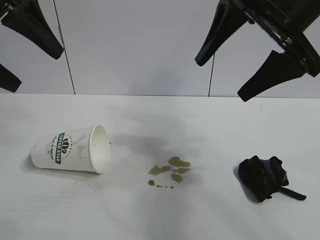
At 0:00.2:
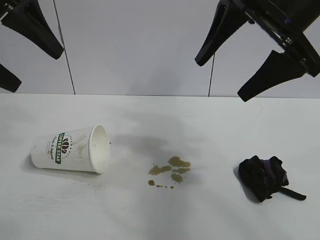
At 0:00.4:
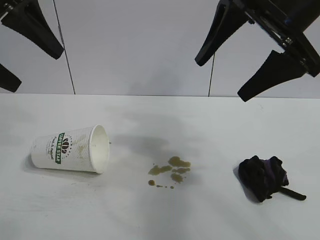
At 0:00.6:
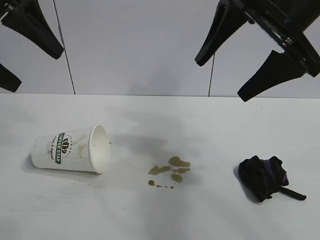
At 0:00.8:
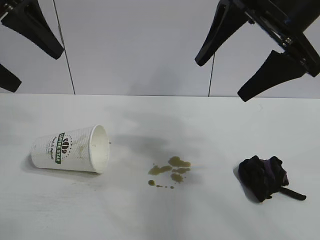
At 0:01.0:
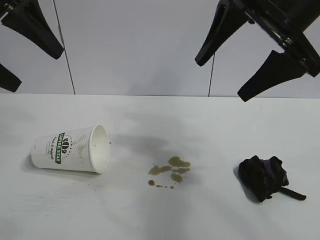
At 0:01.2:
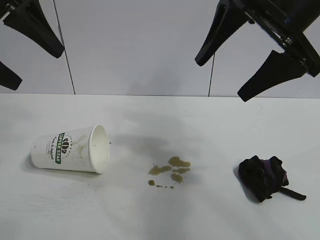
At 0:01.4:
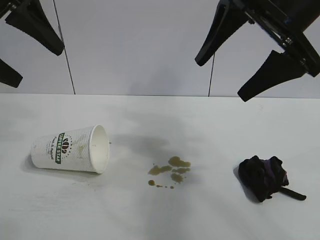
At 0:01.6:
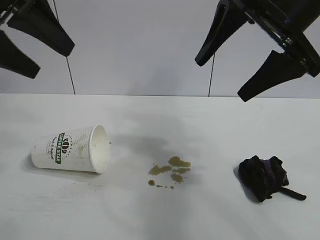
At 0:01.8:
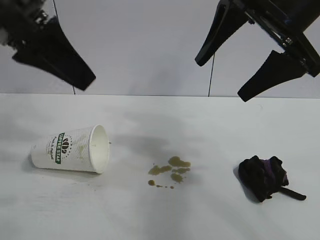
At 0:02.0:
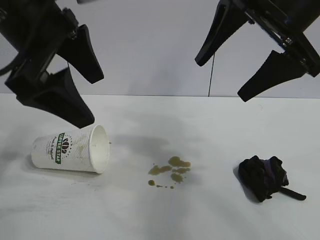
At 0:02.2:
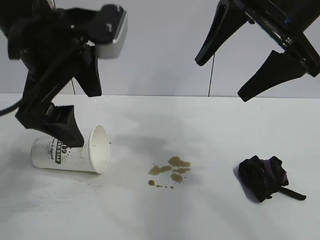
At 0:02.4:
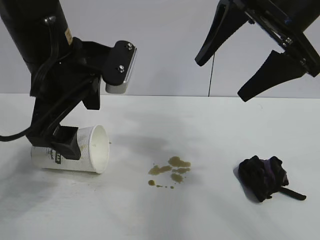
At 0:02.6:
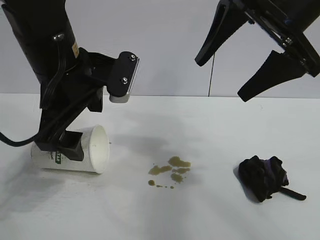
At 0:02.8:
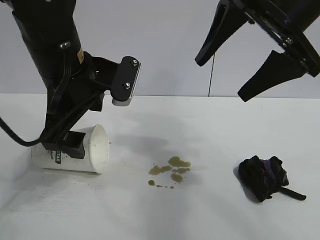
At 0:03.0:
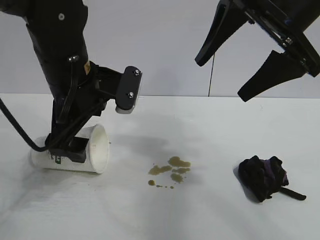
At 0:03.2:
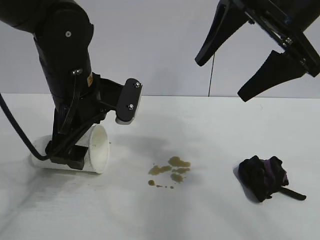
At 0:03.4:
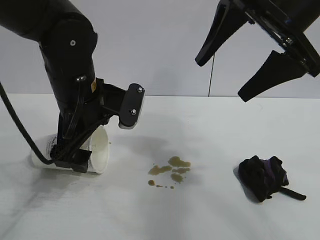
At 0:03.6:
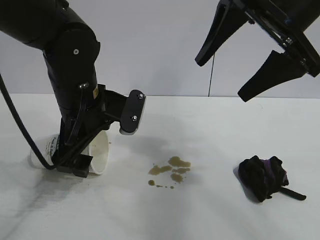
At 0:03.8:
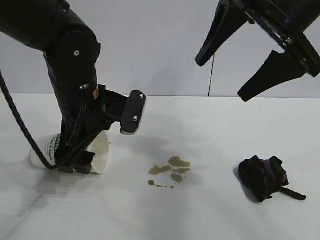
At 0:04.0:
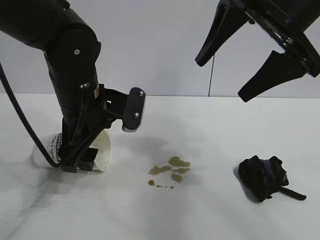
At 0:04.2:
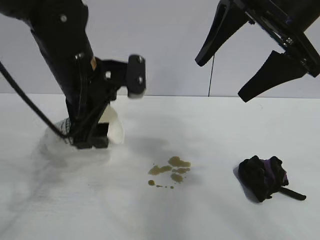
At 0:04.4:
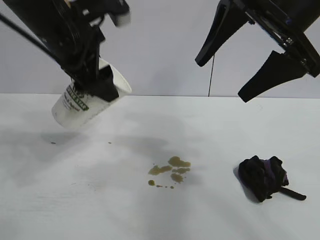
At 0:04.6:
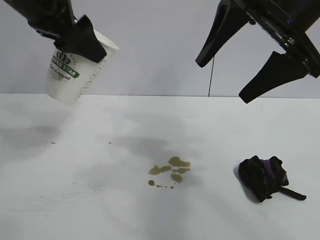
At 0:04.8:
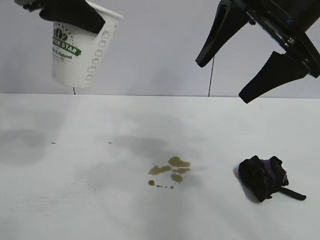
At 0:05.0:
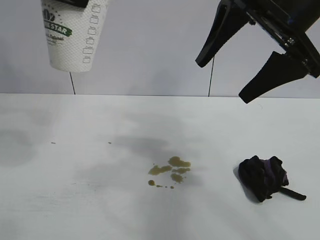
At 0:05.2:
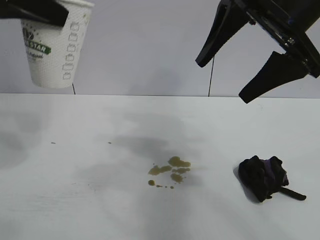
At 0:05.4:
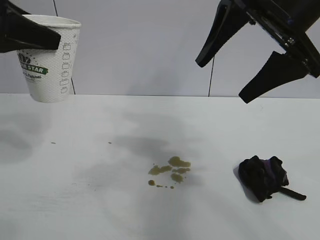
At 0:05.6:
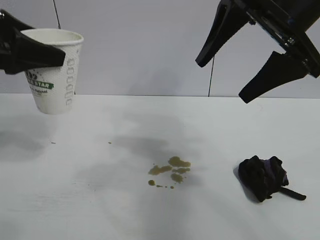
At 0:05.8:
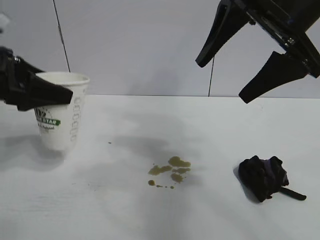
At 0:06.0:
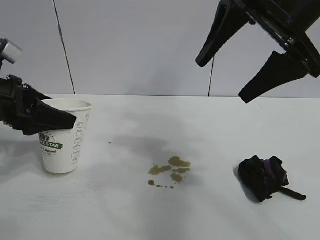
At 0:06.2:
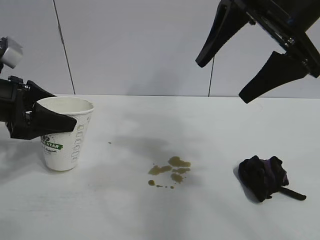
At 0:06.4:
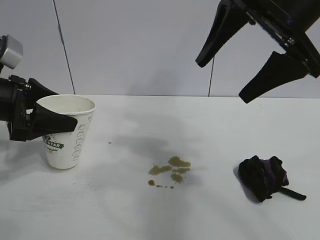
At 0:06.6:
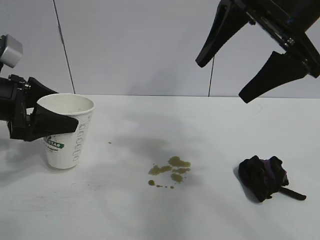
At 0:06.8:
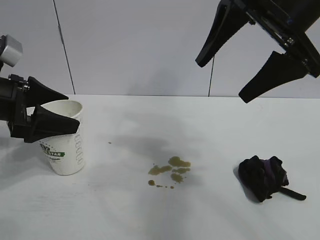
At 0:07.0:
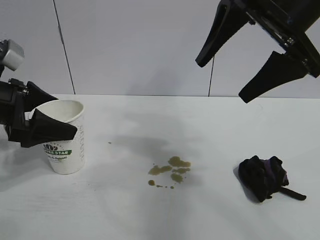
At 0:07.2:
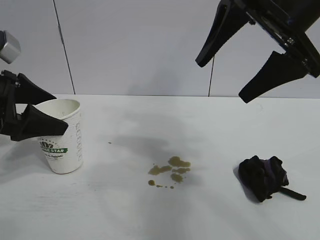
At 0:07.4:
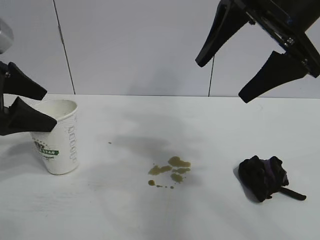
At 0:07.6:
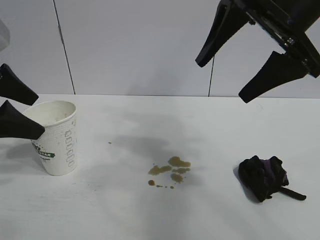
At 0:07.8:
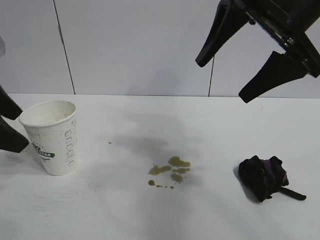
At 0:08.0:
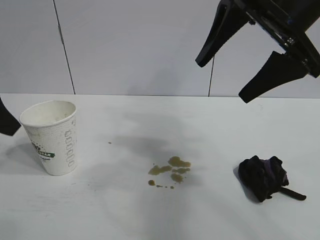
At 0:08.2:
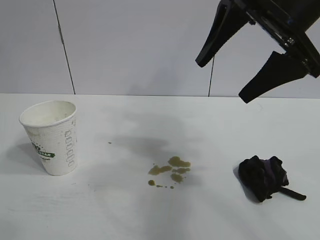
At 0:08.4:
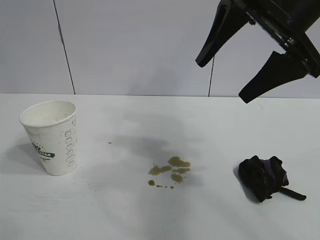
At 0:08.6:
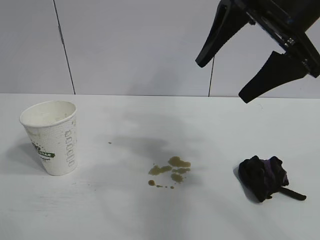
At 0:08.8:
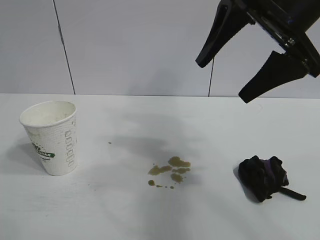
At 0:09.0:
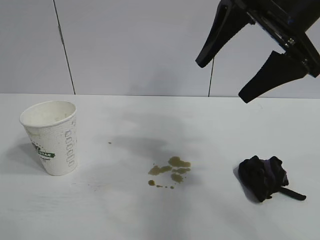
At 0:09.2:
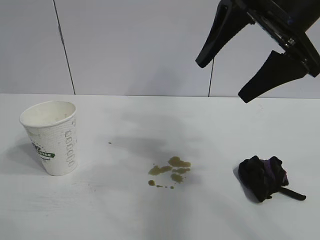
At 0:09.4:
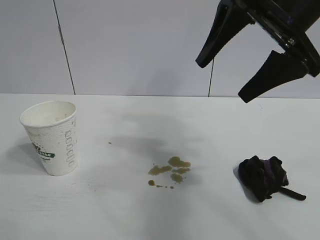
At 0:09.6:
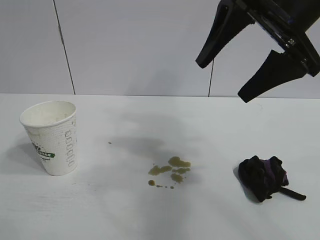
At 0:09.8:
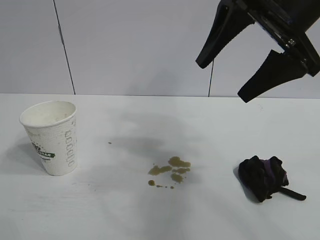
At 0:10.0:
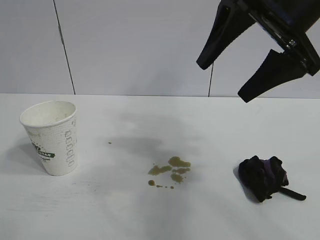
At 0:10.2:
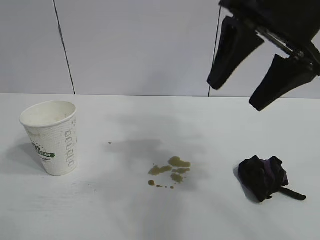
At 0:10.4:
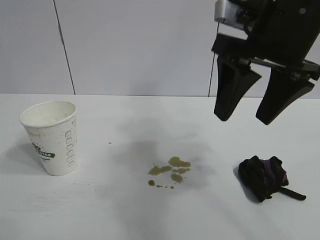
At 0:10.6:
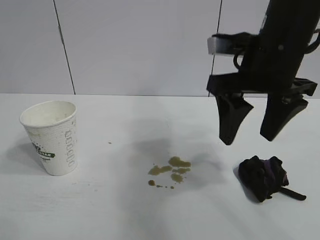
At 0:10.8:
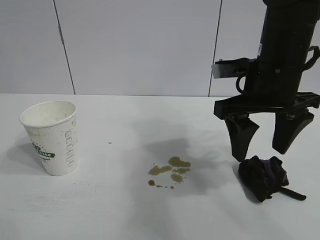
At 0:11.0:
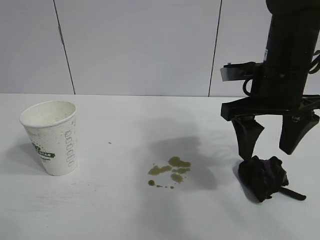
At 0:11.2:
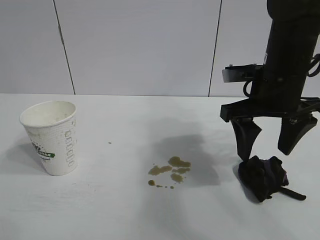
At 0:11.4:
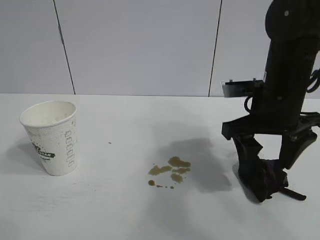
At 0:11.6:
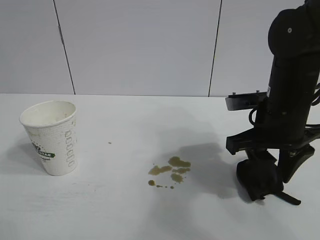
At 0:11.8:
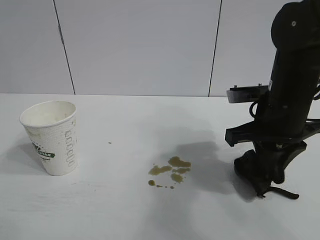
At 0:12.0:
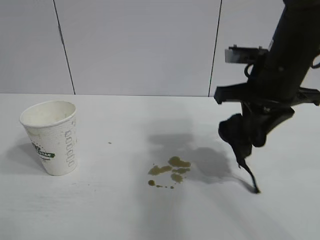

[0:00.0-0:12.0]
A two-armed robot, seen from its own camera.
Task of the whole recording: the left gripper pick up the fallen cup and place it upright, the right gripper grasp the black rag and wipe the stain on the table, the right gripper put the black rag back in its original position.
Step, 0:01.2 to 0:03.8: Grasp the paper cup with left gripper.
Step, 0:04.2 to 0:06.8: Stand the paper cup upright with left gripper.
Step, 0:07.0 to 0:11.6: Grasp the rag with right gripper.

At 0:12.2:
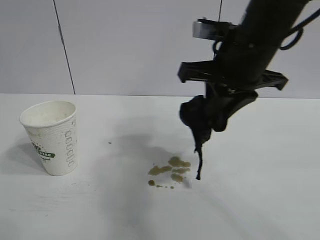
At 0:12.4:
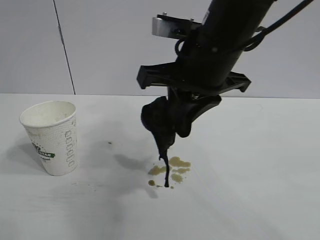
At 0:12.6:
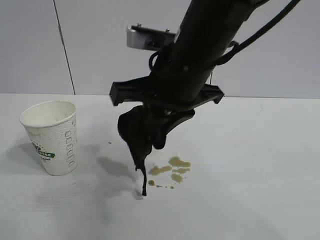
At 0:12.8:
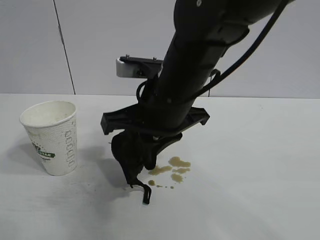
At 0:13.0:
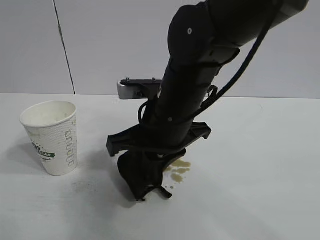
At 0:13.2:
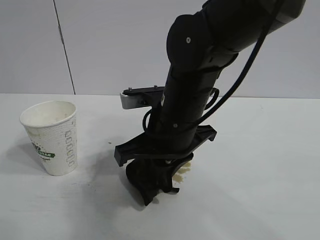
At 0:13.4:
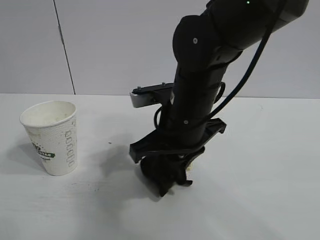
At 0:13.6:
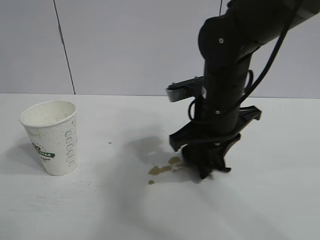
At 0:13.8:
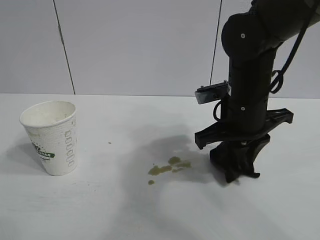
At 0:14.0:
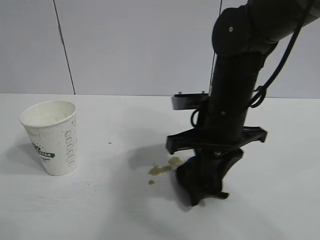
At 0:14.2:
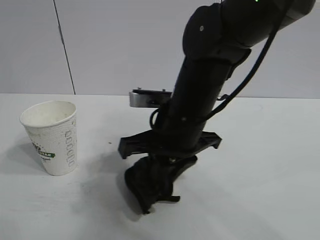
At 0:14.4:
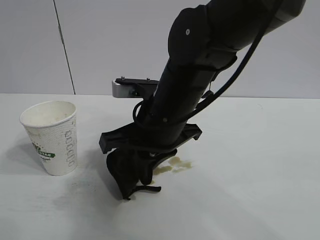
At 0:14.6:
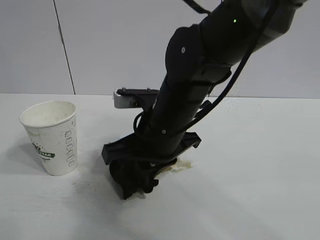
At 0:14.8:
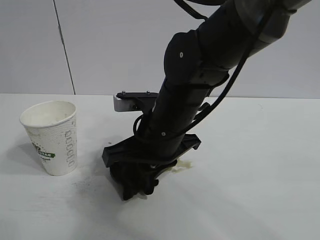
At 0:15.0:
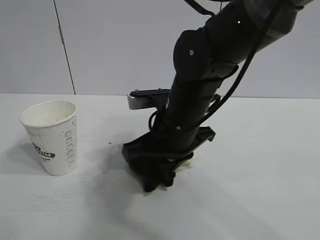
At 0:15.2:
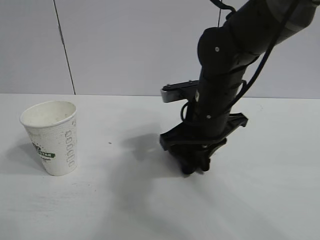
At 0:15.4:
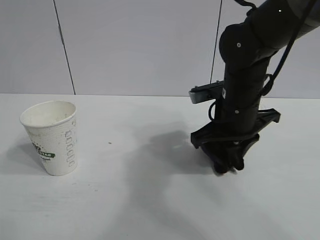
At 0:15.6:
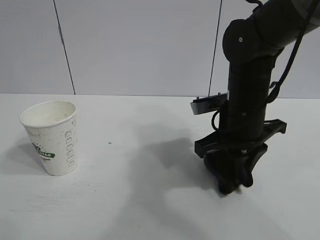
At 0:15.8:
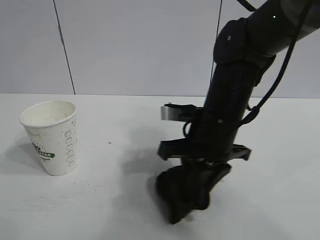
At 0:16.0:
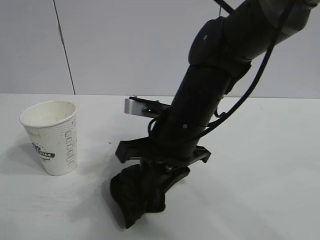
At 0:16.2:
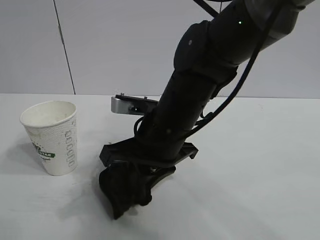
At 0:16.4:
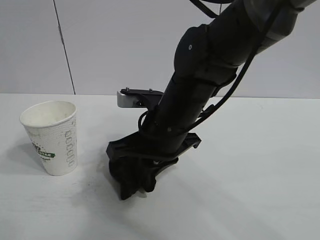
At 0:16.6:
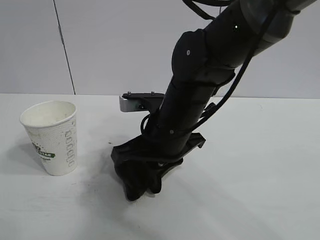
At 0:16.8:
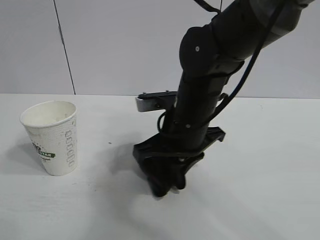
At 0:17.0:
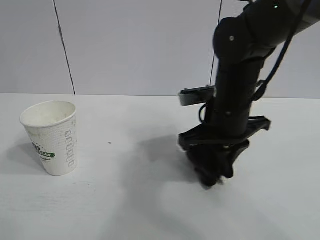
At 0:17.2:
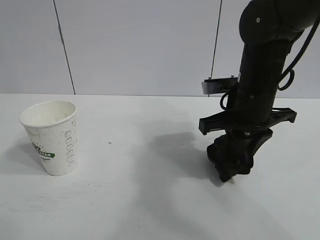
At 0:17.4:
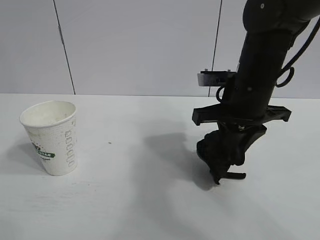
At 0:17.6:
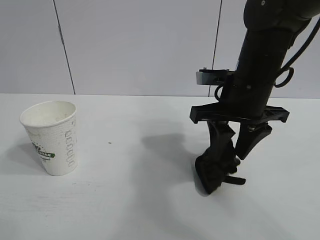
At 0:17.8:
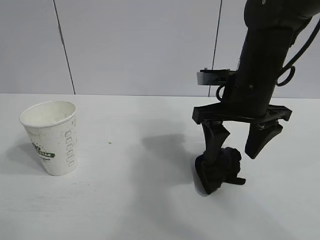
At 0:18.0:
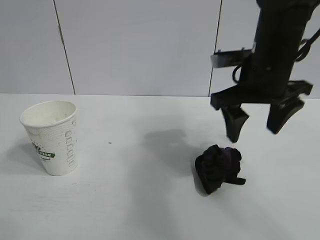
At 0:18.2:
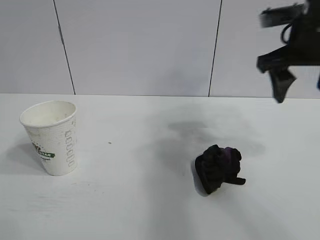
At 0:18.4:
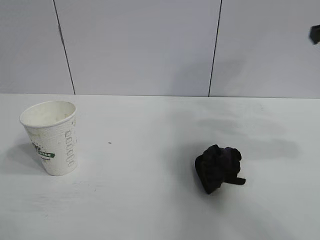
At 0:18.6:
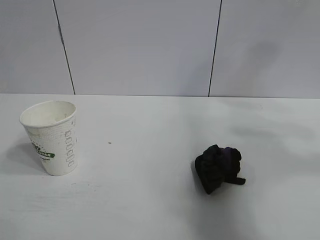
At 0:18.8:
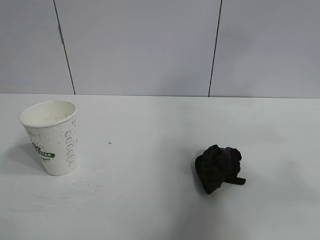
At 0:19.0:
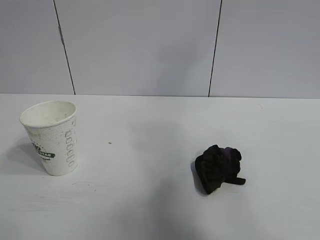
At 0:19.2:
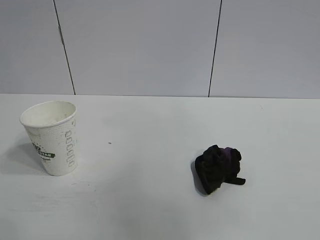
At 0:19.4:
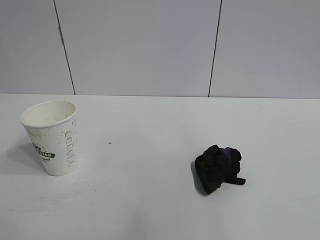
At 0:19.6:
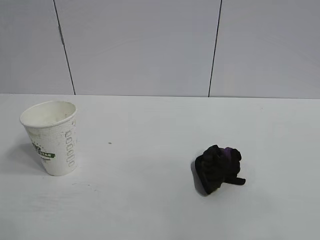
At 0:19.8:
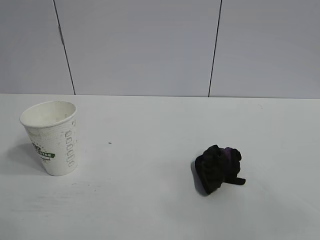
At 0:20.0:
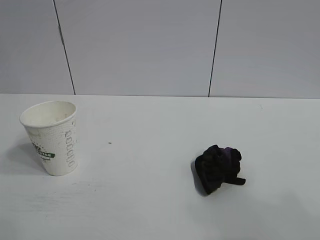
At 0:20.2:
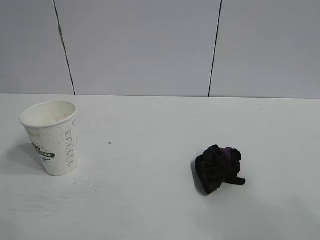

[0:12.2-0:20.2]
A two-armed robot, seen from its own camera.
Task of the whole recording: the left gripper pick up the fallen cup and place it upright, the right gripper grasp the black rag and wipe the stain on the table, the right gripper put the black rag back in its original position.
Step, 0:12.2 to 0:16.6: Wipe the stains off the table with the rag with right gripper.
Step, 0:16.8 to 0:17.6: Place the rag on the table with right gripper.
